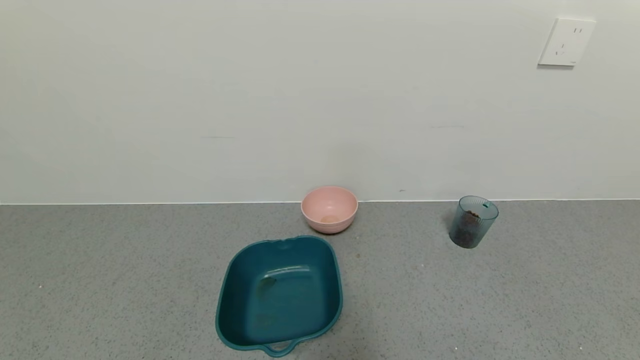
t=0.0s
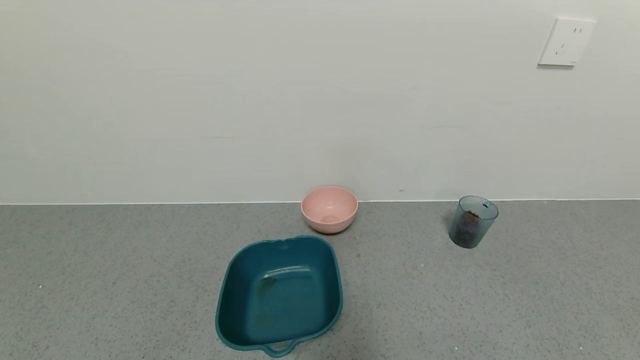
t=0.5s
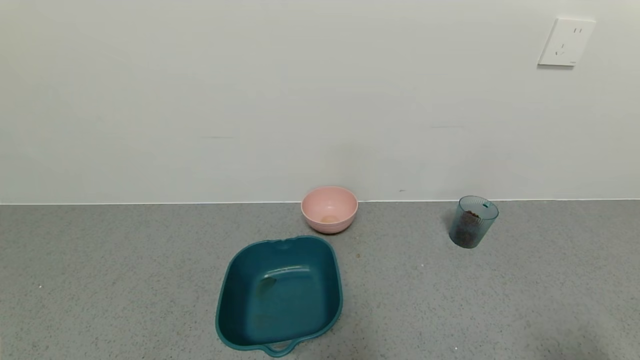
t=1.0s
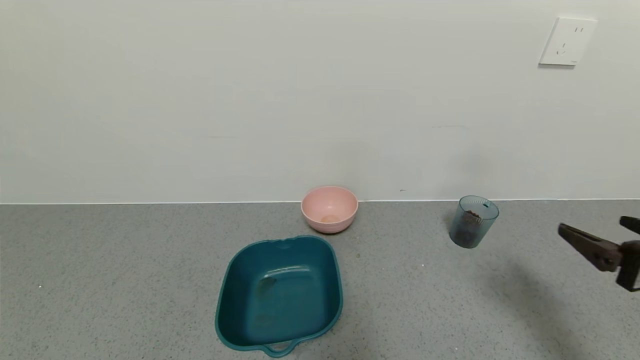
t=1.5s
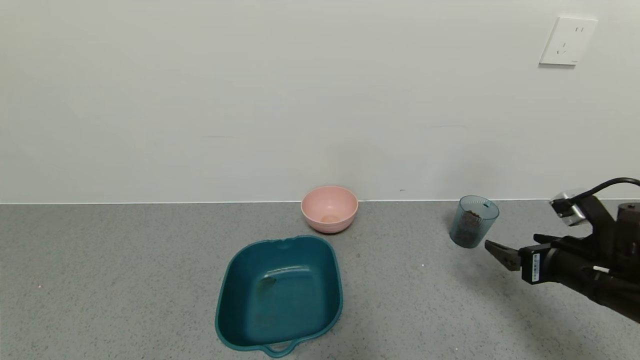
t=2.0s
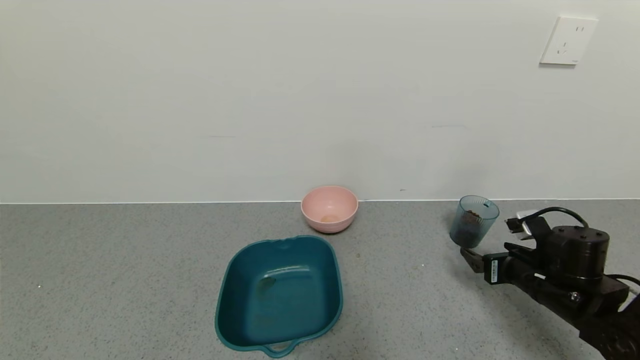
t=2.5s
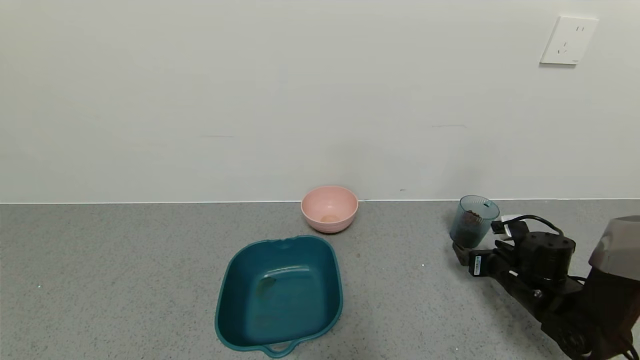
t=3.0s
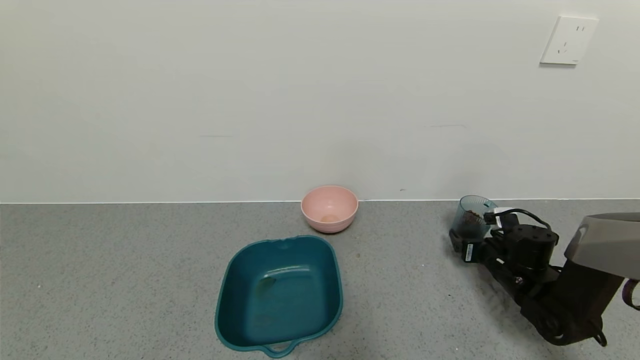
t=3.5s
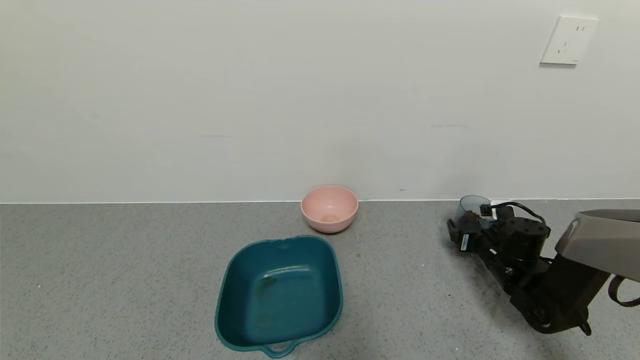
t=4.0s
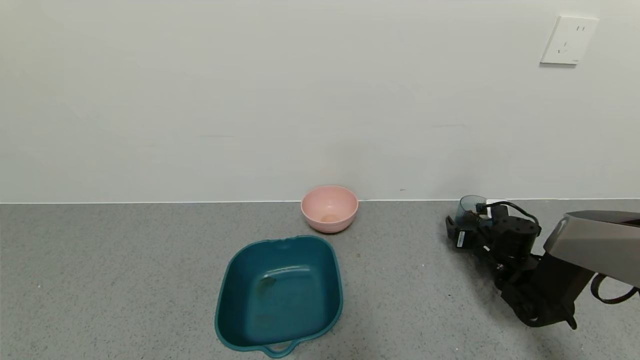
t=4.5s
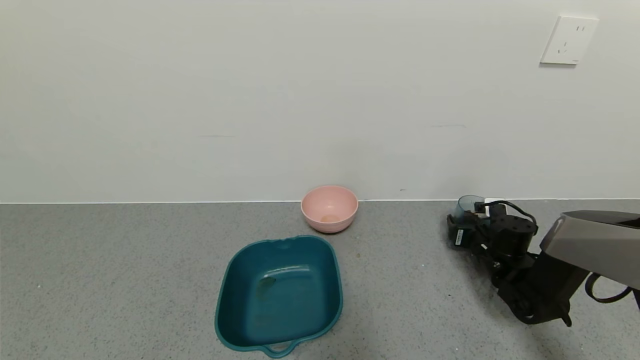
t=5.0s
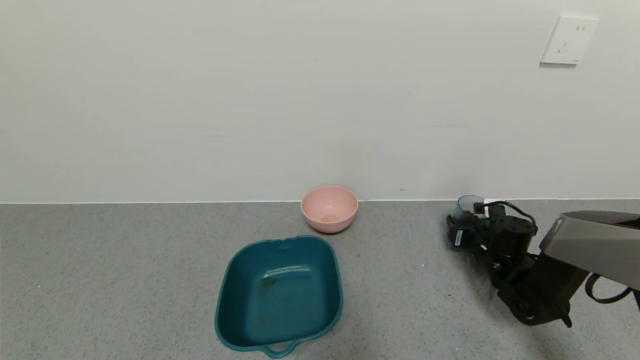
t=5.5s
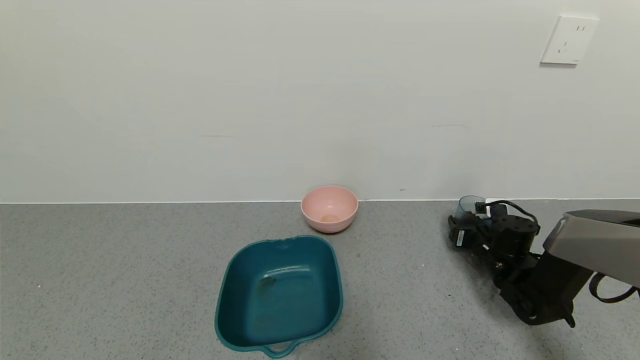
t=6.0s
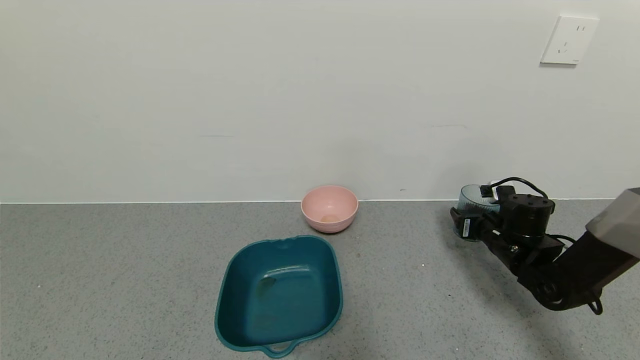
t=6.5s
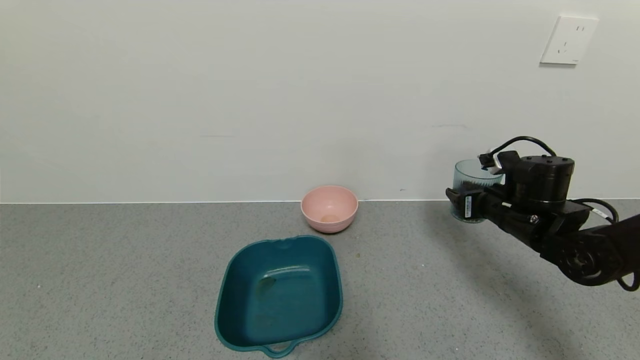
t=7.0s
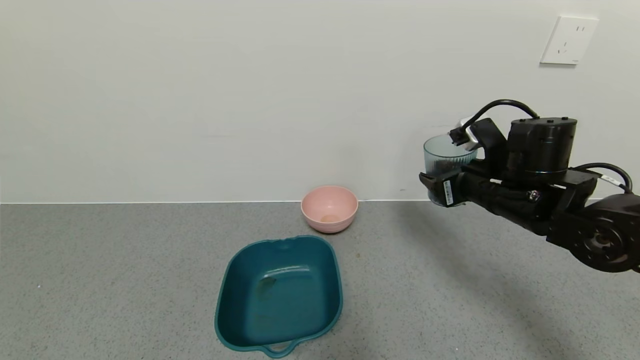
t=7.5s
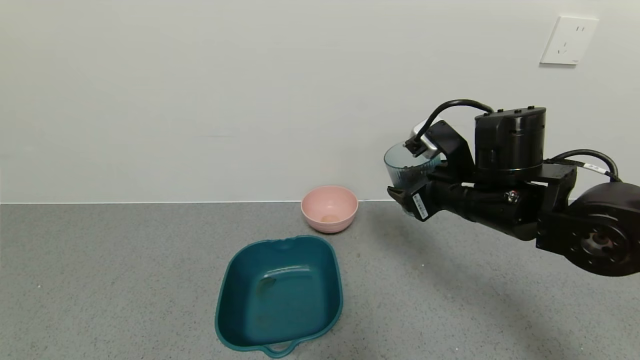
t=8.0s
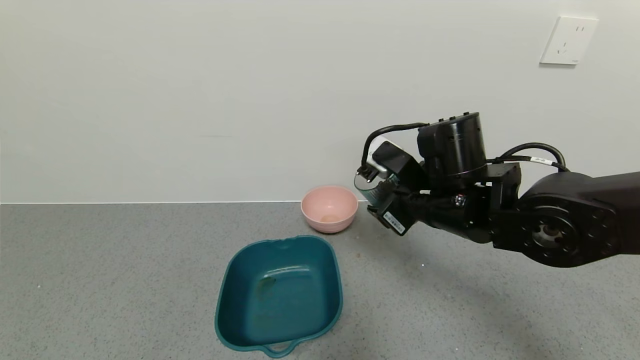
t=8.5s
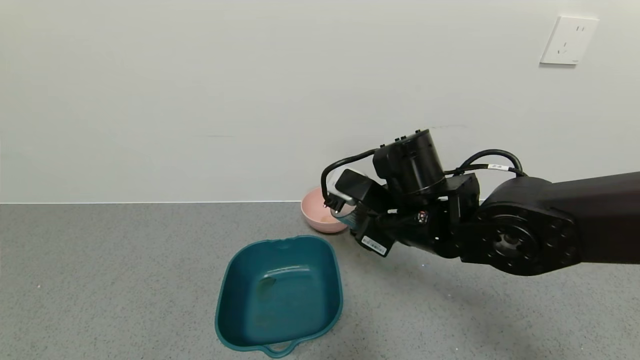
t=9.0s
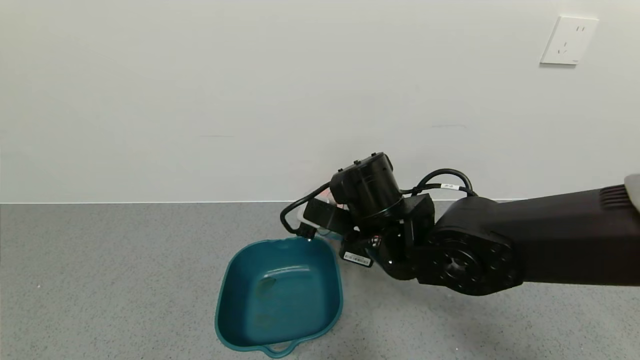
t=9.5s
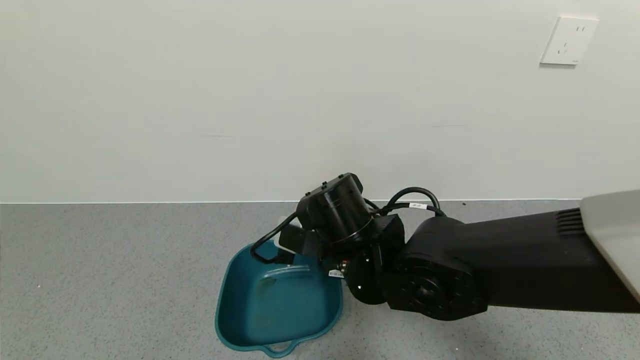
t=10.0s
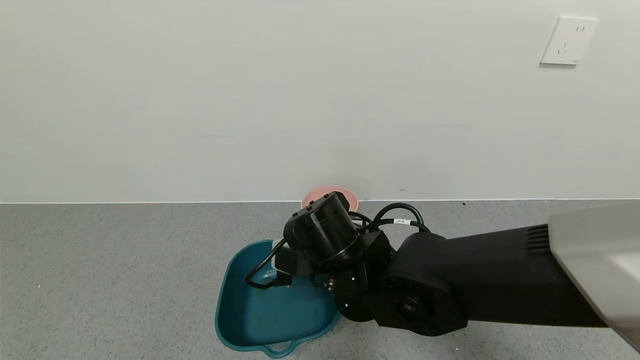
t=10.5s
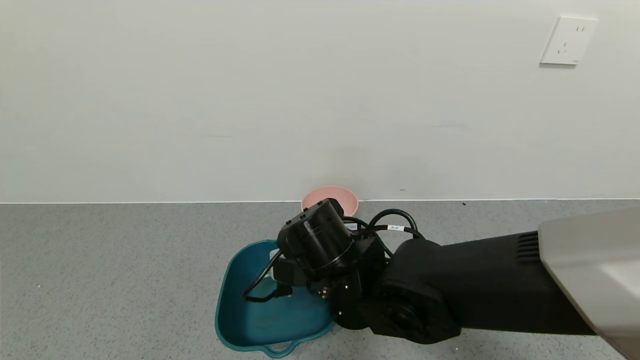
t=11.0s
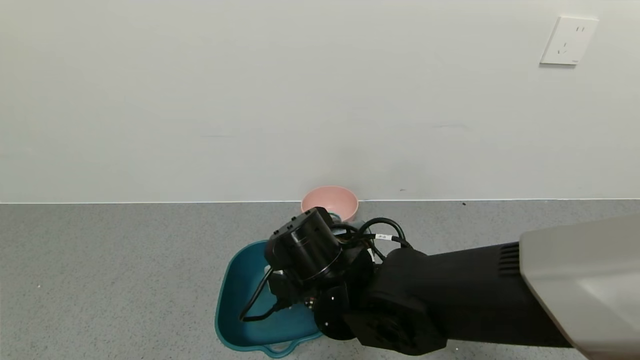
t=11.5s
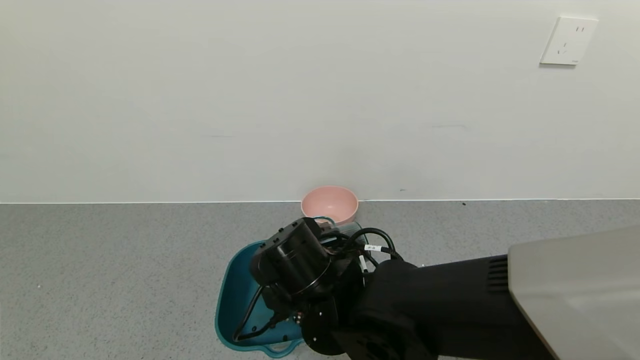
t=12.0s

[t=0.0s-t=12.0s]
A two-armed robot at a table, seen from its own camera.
Task of the whole recording: use a gripper to pick up the cup and pour the solid into a bowl or tray.
Step, t=0.0s to t=6.0s: Grasp the glass of coffee beans with the right gripper.
t=0.0s to t=2.0s: The right gripper heads forward, covering some 25 cm.
t=2.0s to t=4.0s: The right gripper goes about 20 cm forward and downward.
t=4.0s to t=6.0s: The right gripper closes.
t=6.0s to t=8.0s: The right gripper moves upward, to the left and backward, about 25 cm.
t=8.0s to t=10.0s: The right gripper moves to the left, some 15 cm.
t=10.0s to t=12.0s: The right gripper shifts by about 5 cm.

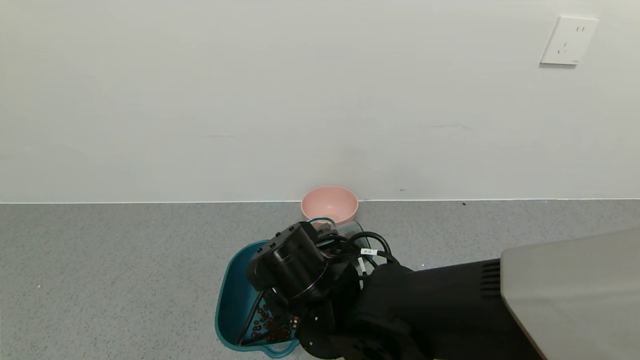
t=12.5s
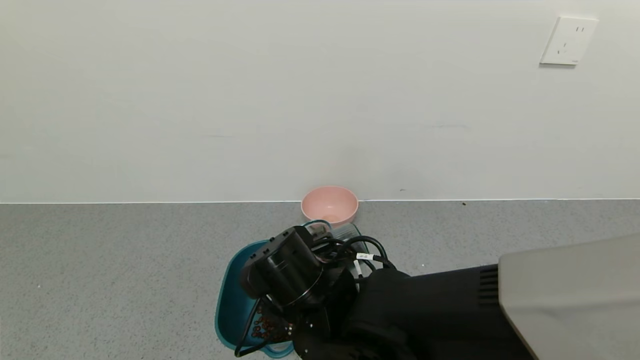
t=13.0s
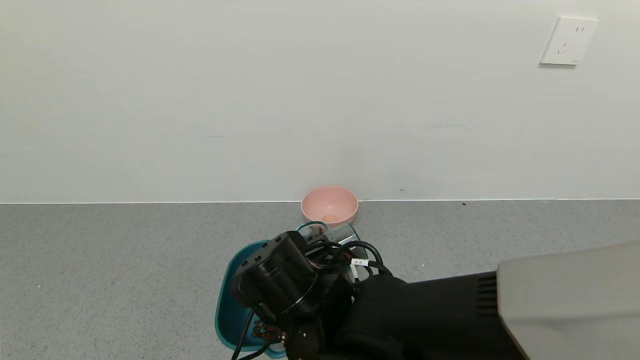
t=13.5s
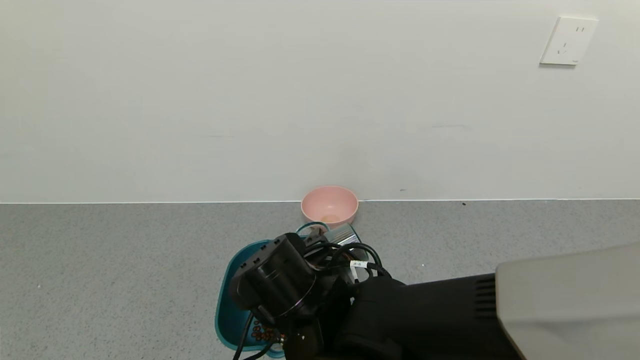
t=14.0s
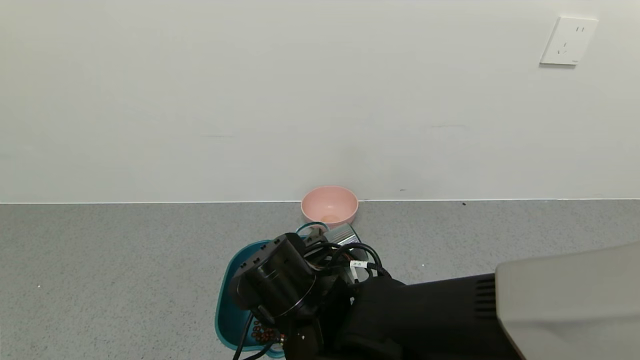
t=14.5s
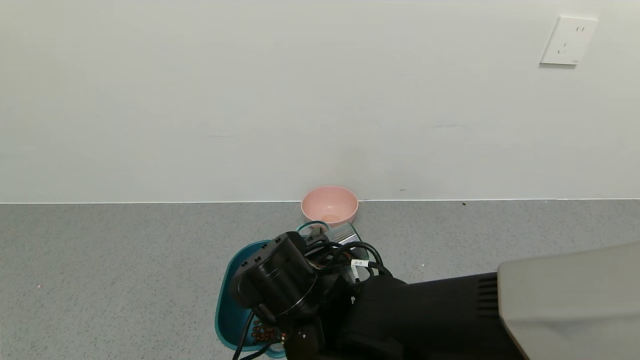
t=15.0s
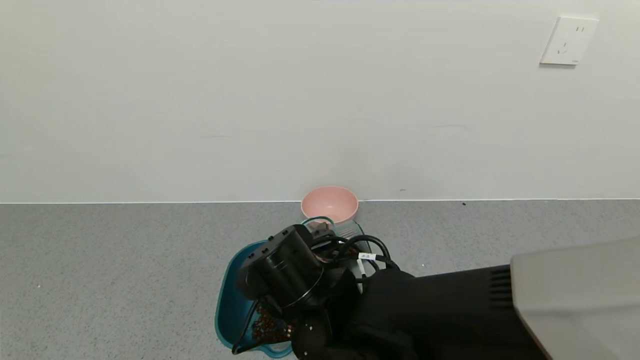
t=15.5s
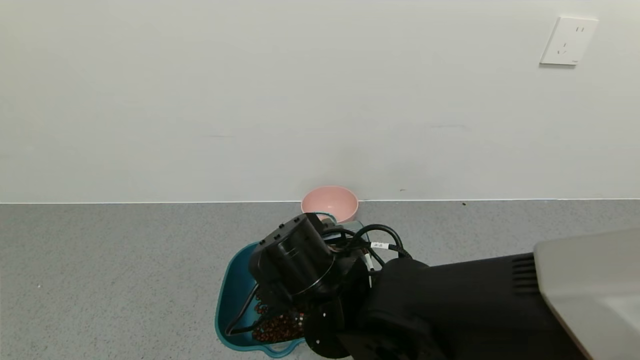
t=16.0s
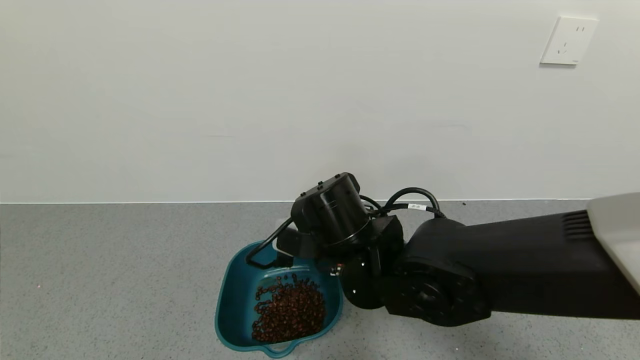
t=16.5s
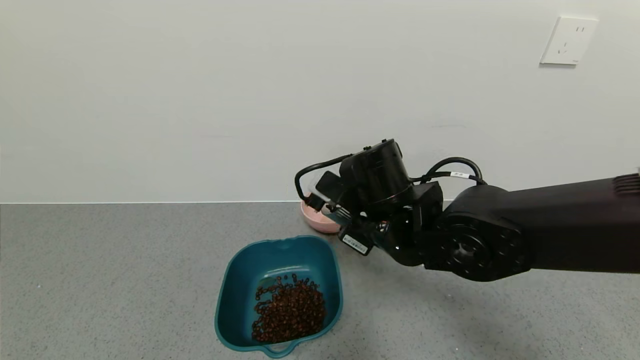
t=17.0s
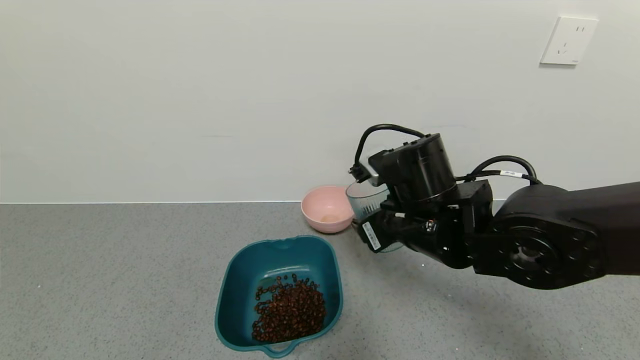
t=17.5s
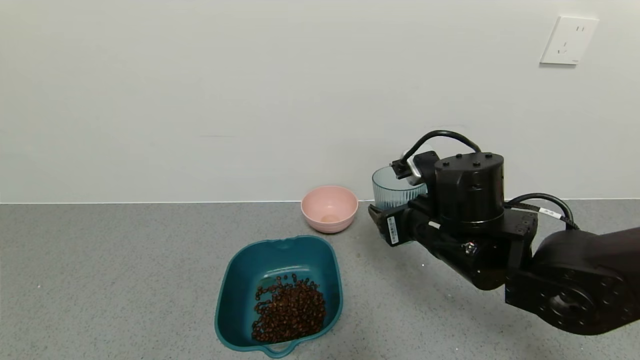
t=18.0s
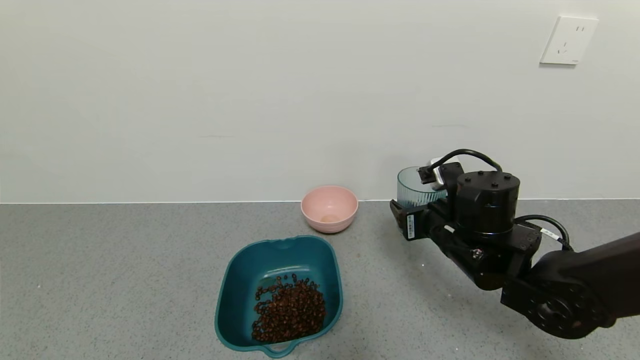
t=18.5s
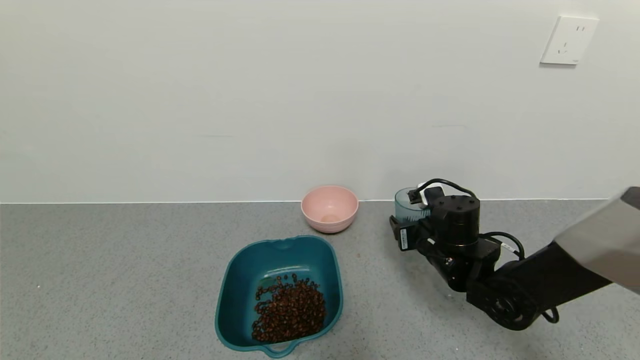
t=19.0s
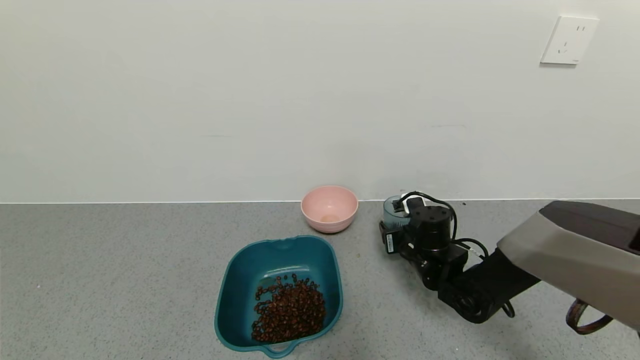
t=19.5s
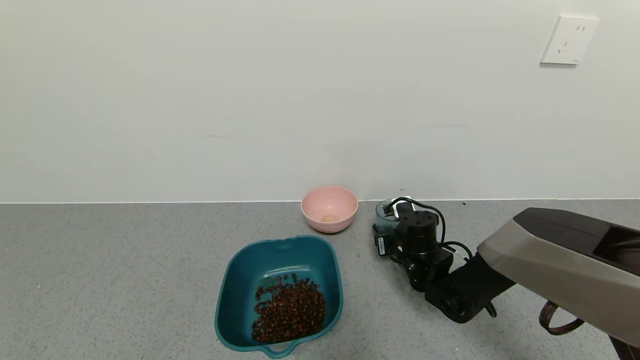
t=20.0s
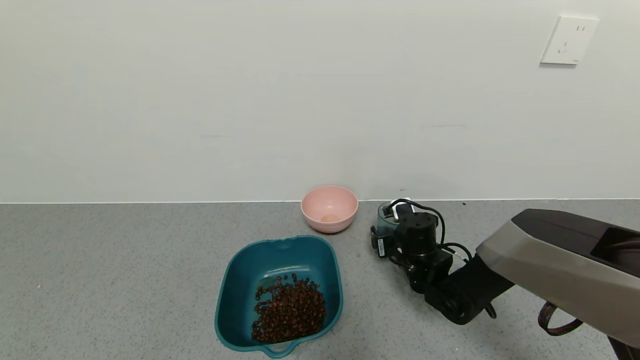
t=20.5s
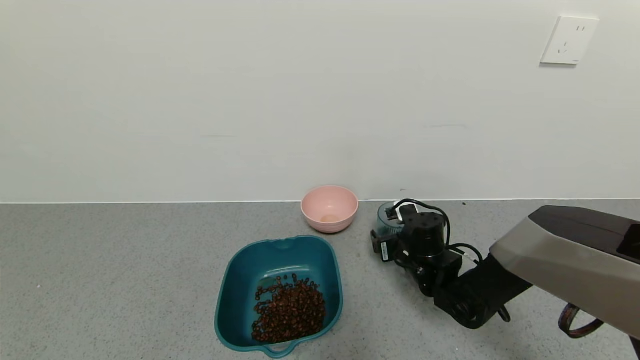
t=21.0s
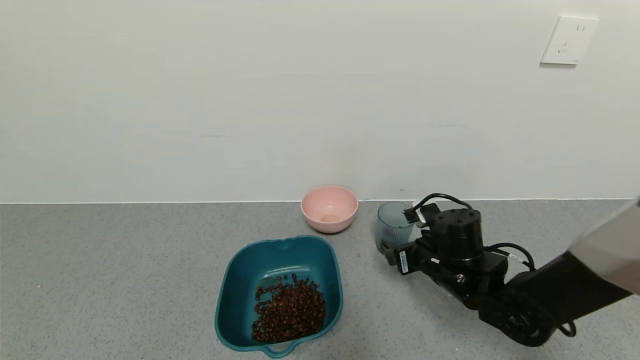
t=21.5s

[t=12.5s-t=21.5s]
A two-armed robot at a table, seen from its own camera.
Task of the whole recording: use a gripper to pick up the cup and pour the solid into a bowl or tray.
Step, t=12.5s to t=17.0s: Pour the coffee beans into the green bowl with the right gripper.
Step, t=17.5s to t=21.5s: Place the glass cup with the right gripper.
t=12.5s to t=14.5s: The grippers move only a little.
t=14.5s to t=17.0s: The right gripper moves to the right, upward and forward, some 15 cm.
t=17.0s to t=19.5s: The right gripper moves downward, to the right and forward, some 20 cm.
t=19.5s to t=21.5s: The right gripper goes about 5 cm backward, and opens.
